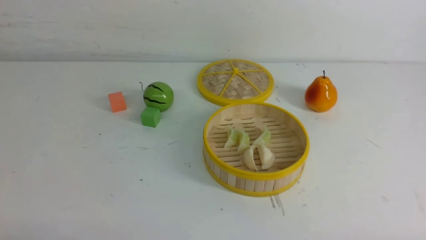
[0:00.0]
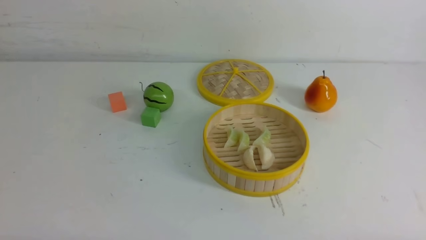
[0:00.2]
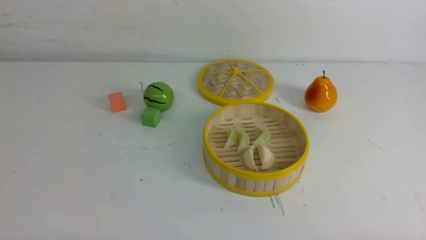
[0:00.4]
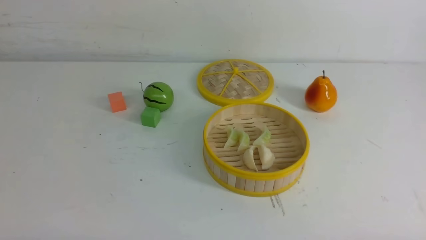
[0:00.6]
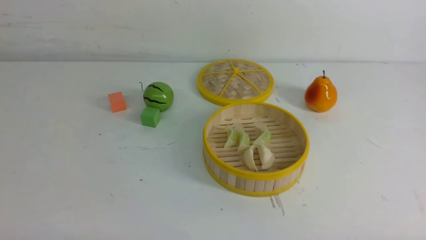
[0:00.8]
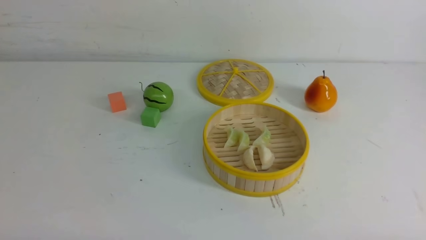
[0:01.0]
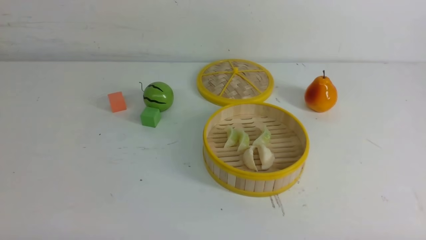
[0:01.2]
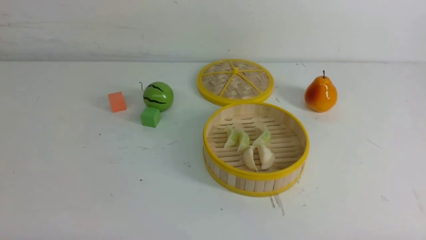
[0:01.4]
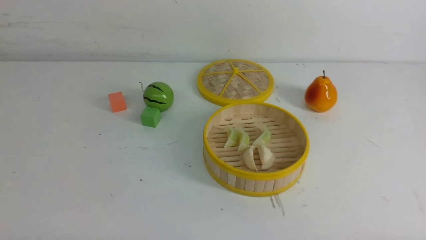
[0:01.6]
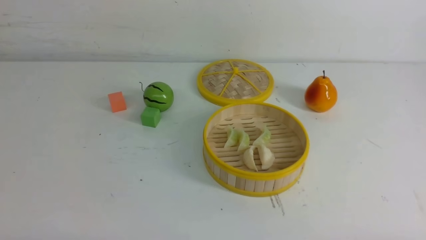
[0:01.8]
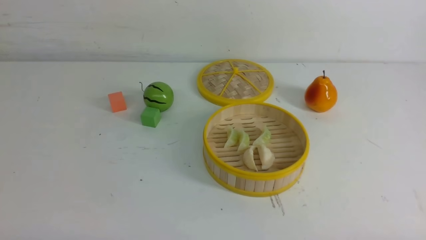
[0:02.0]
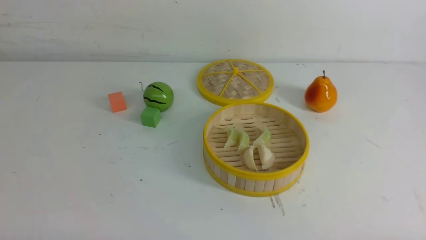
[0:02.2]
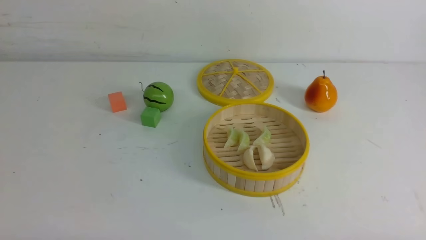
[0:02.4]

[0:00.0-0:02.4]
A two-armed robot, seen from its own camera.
Task of the whole recording: put the dumplings into the steamer on the white table.
0:01.2 to 0:02.4: Both grippers stay about where they are.
